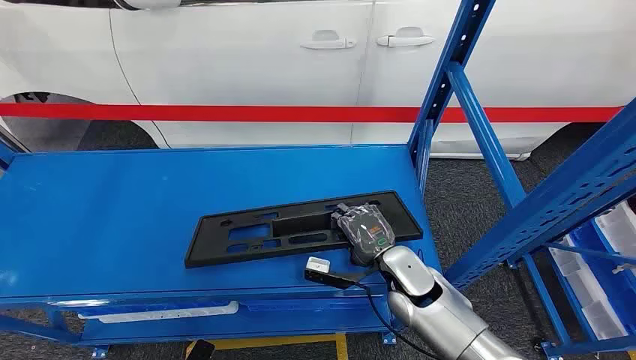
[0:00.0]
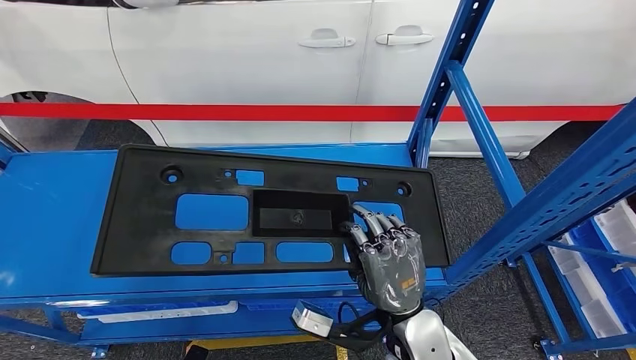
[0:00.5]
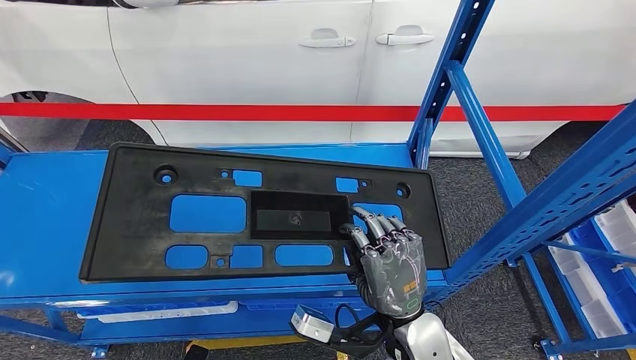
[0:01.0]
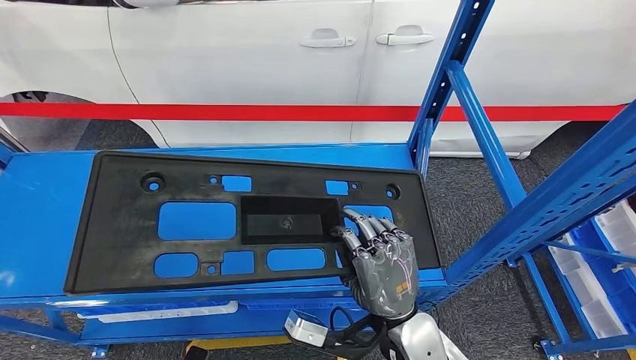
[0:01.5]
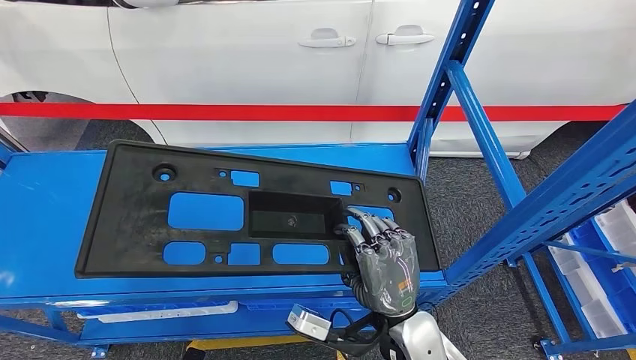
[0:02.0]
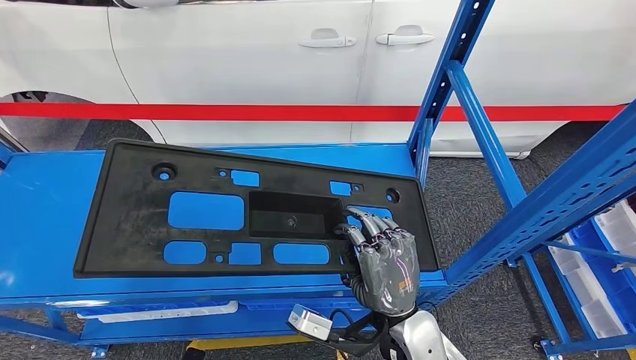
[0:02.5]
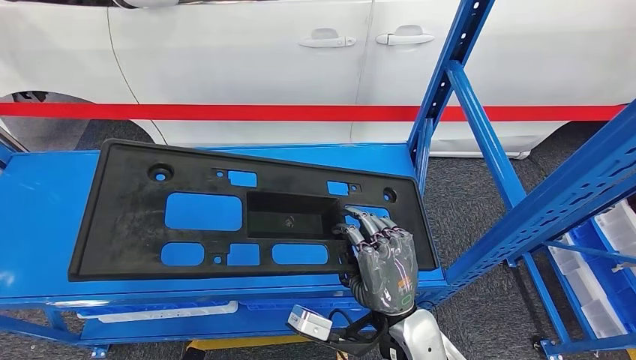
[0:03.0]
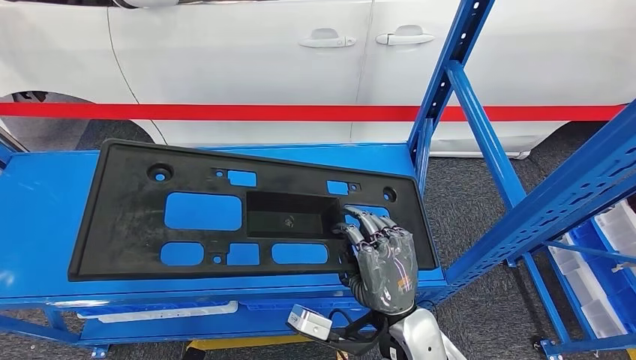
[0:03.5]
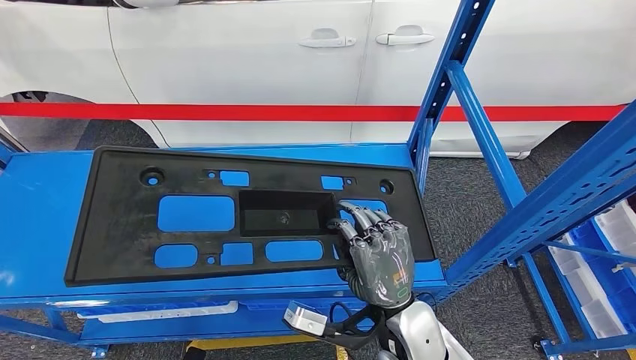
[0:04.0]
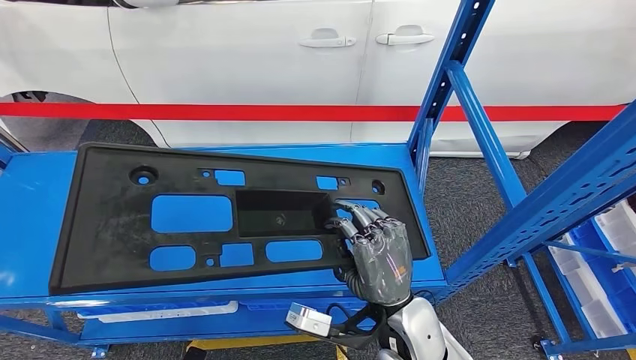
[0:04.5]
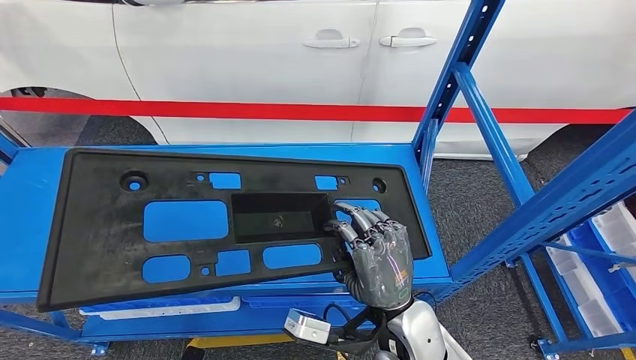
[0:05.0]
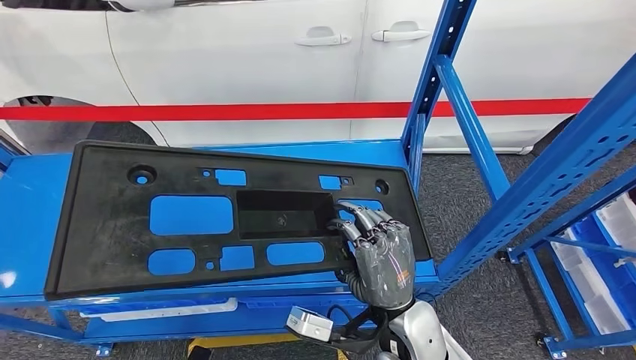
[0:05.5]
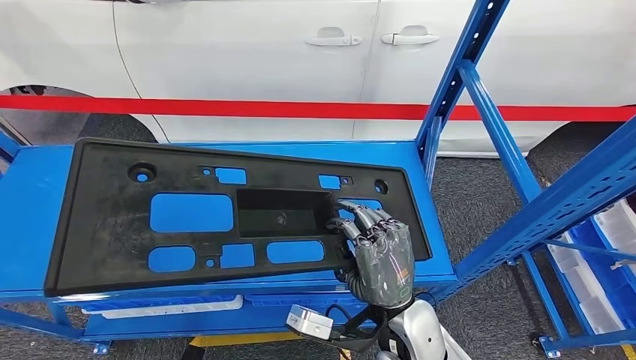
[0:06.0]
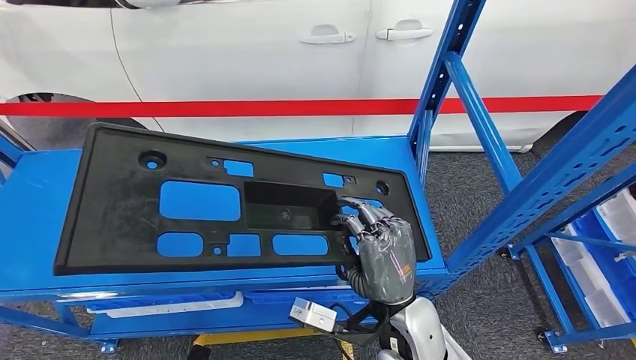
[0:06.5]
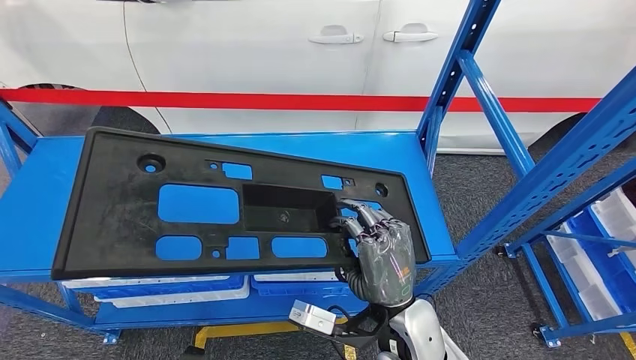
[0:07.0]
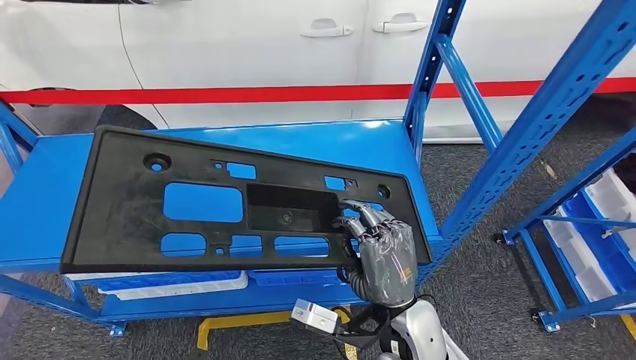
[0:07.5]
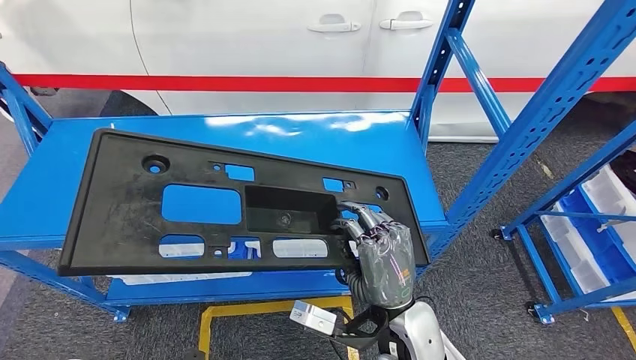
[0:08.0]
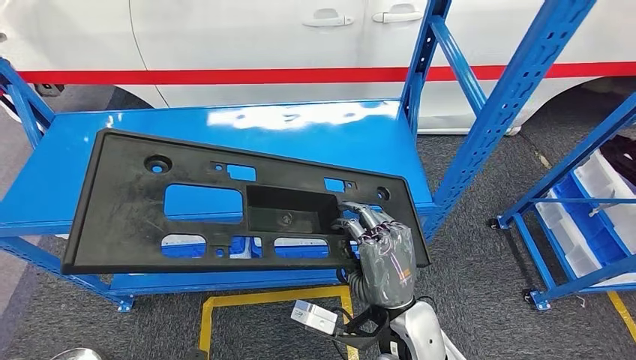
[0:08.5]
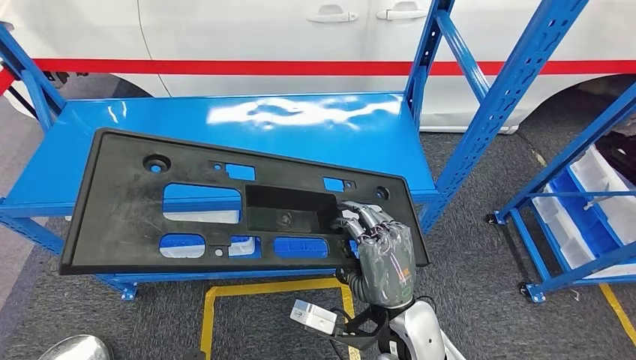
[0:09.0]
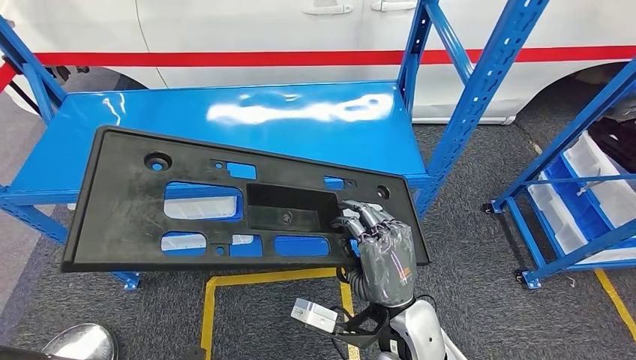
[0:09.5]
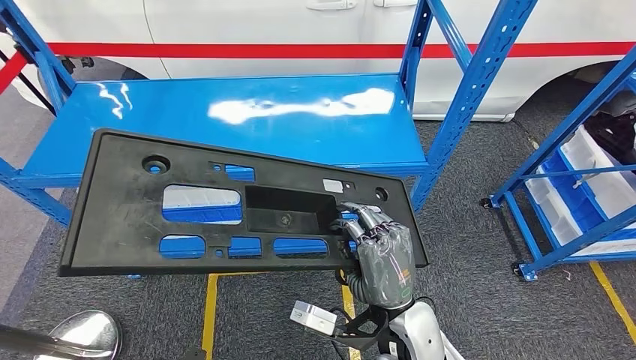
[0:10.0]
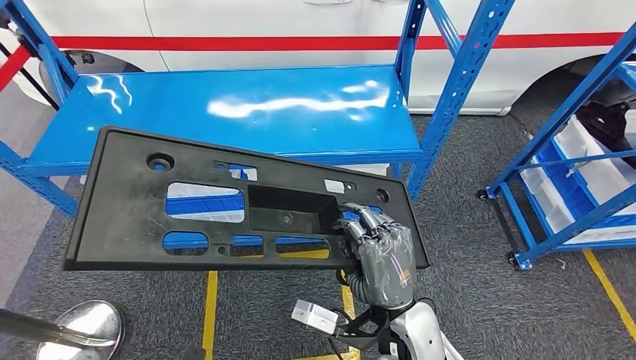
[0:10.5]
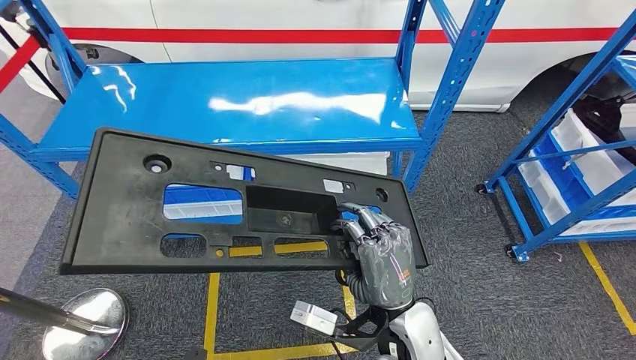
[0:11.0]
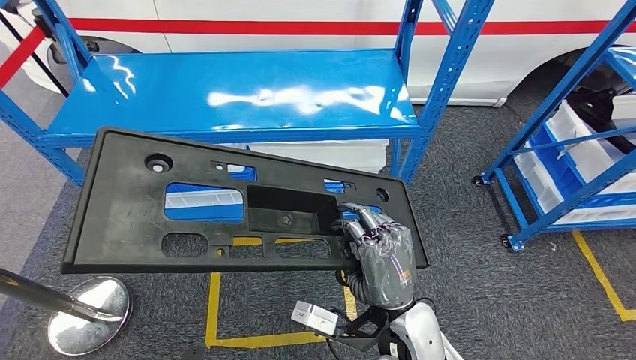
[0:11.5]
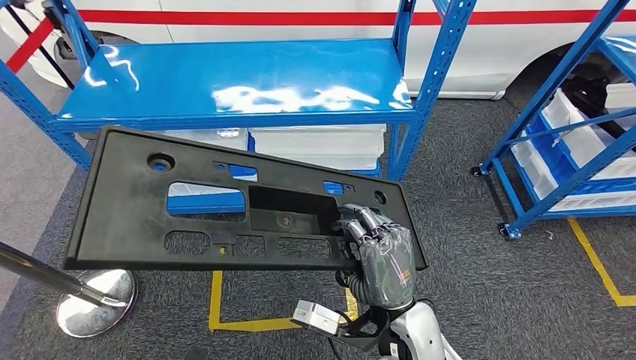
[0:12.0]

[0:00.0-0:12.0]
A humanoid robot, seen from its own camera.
Step, 0:00.0 to 0:07.5: Pick up the large material from the shelf.
0:02.0 to 0:04.0: Both hands stay put.
0:04.0 to 0:06.0: There are only small adjustments of the hands.

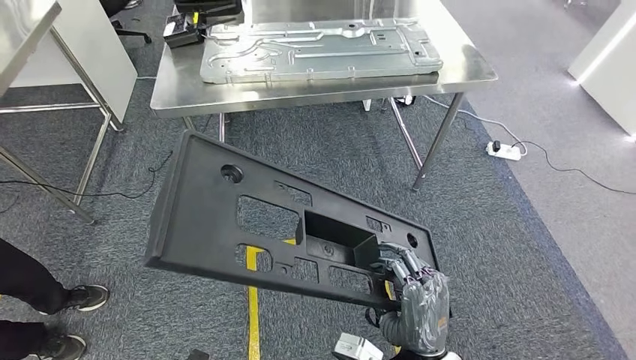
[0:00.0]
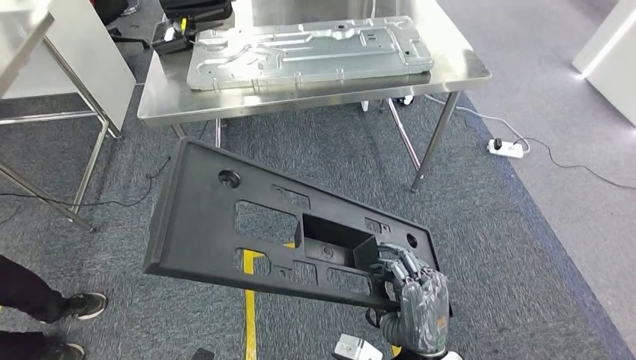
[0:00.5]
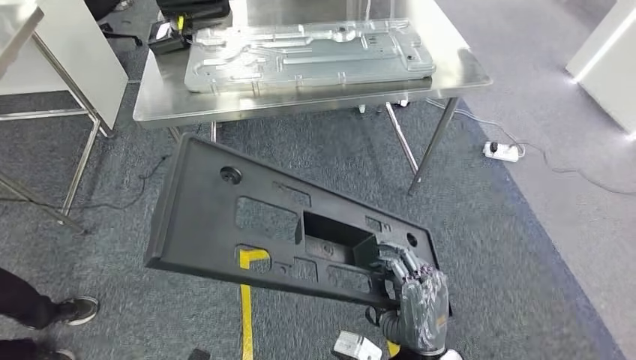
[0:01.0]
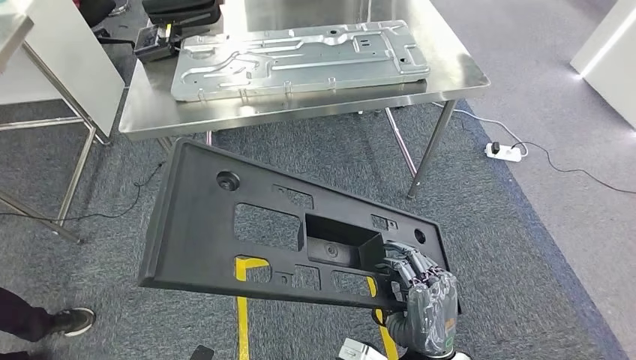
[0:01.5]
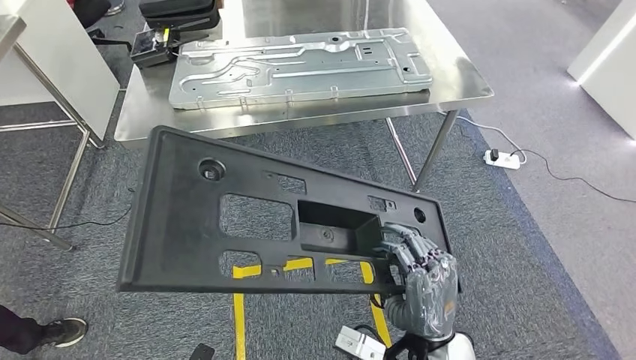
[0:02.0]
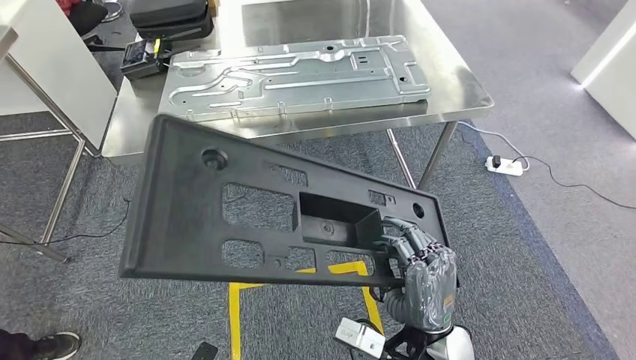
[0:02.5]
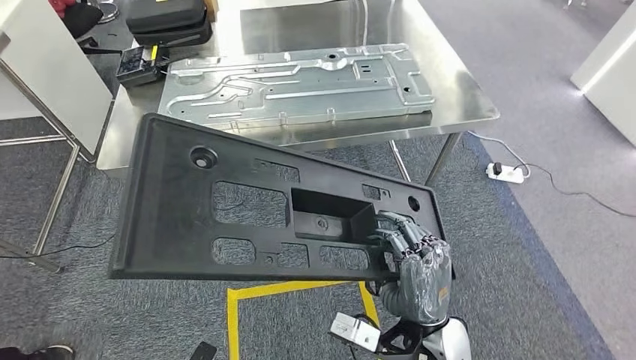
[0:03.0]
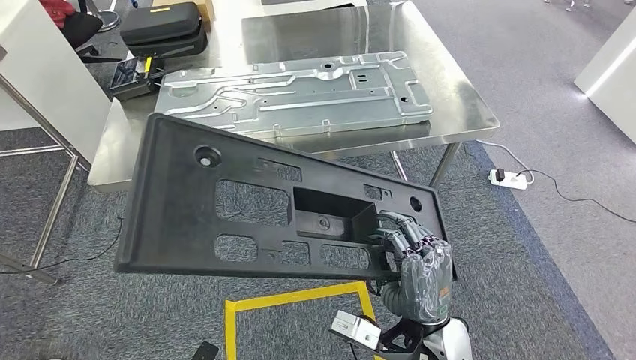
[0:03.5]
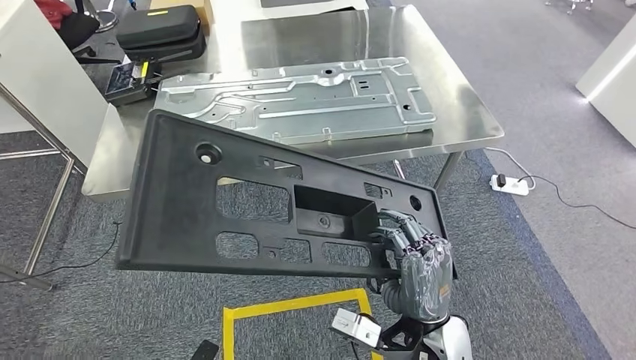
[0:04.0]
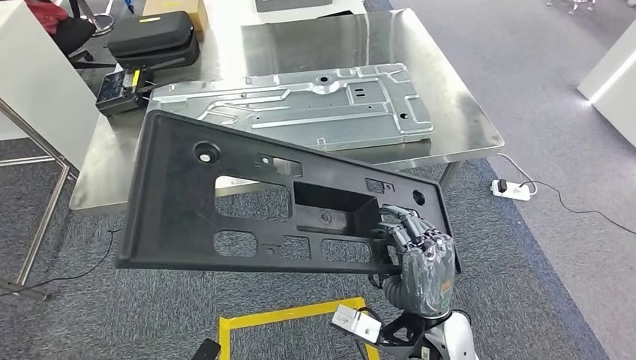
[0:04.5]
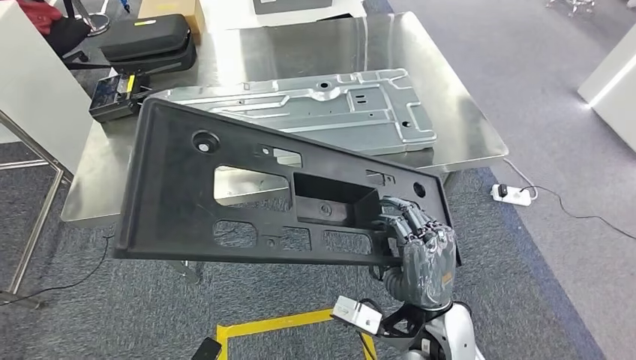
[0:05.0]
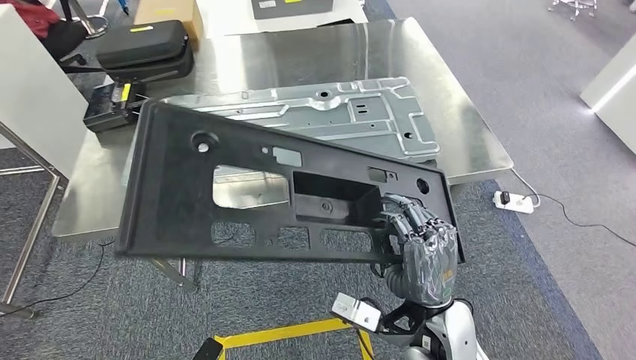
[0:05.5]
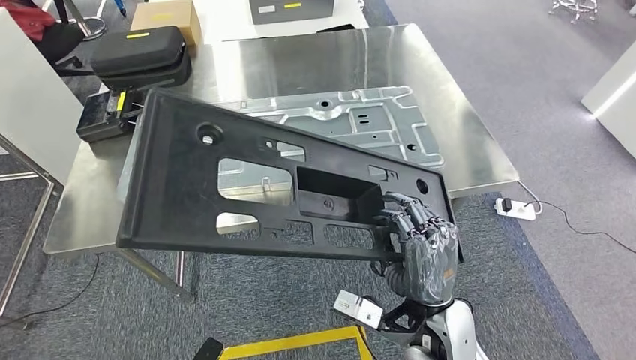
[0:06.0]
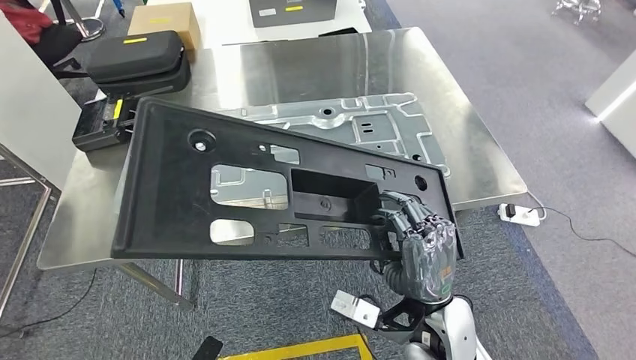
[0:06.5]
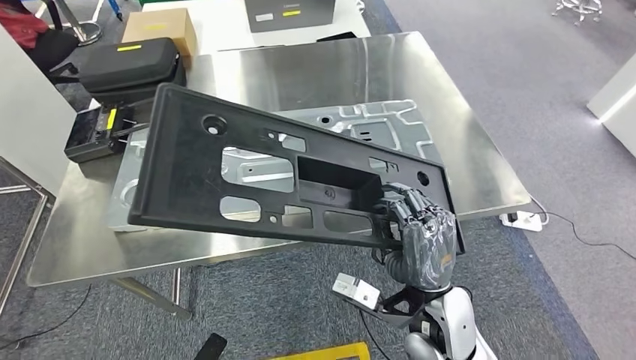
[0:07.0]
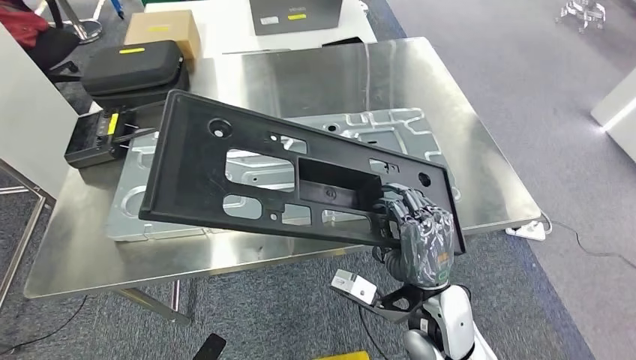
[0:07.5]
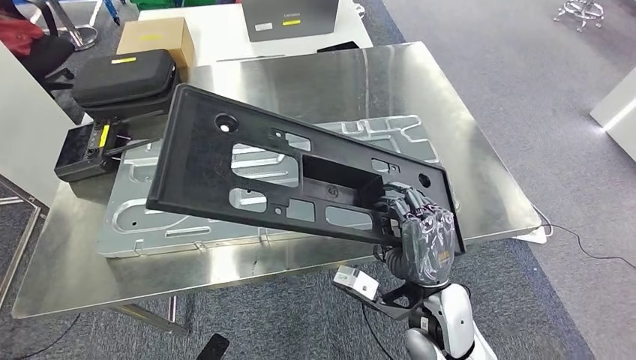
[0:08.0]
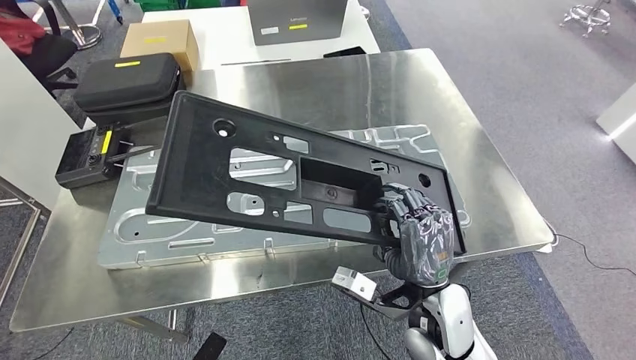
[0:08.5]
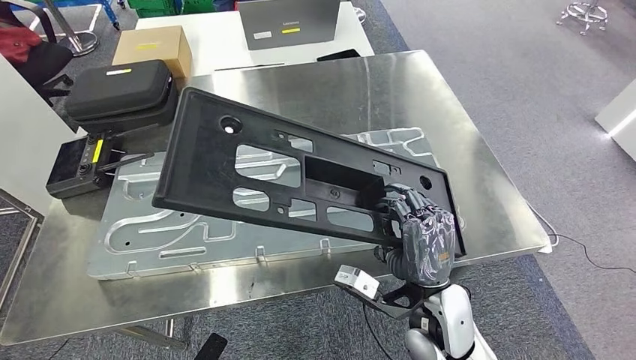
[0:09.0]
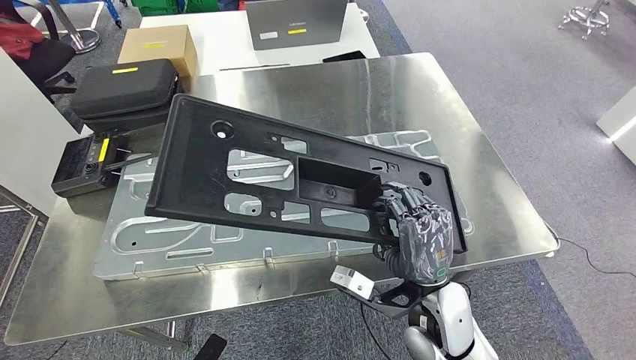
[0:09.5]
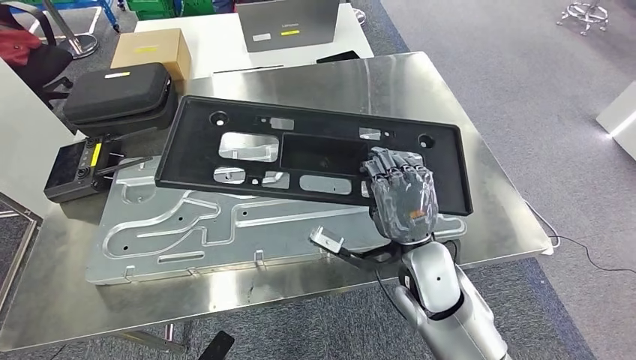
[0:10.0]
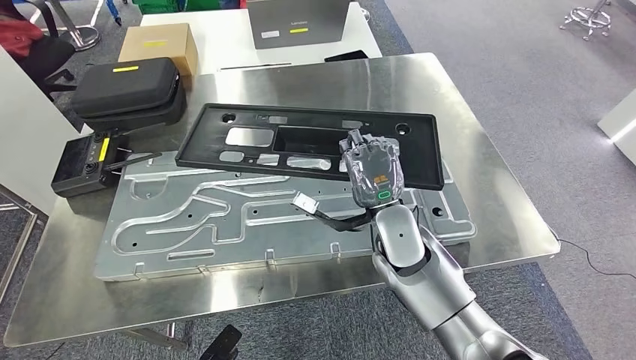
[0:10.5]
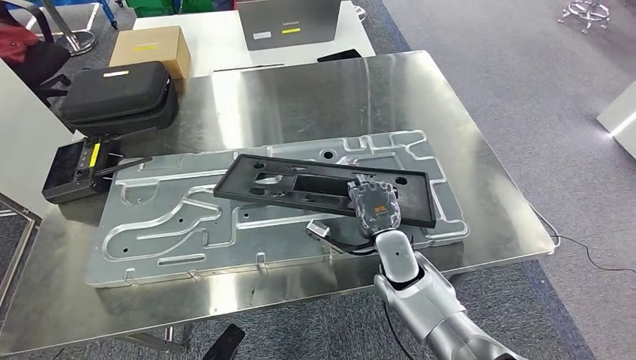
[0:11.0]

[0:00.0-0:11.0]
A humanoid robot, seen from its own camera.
Step, 0:00.0 to 0:05.0: Move the large material to the front of the workbench.
